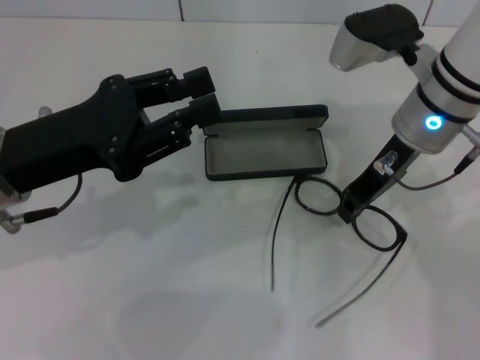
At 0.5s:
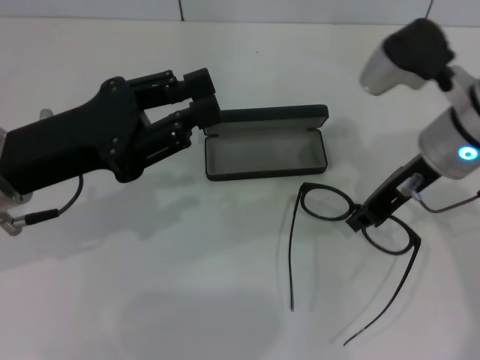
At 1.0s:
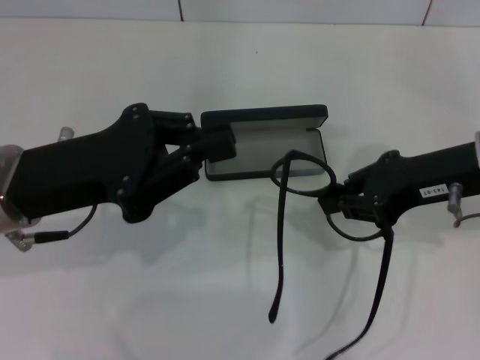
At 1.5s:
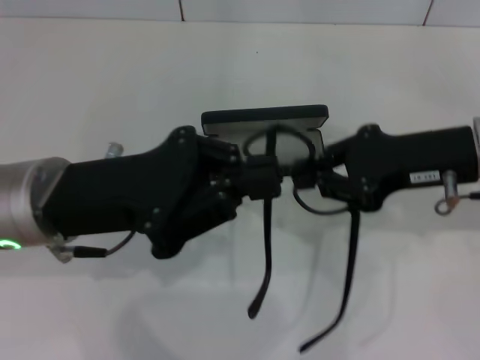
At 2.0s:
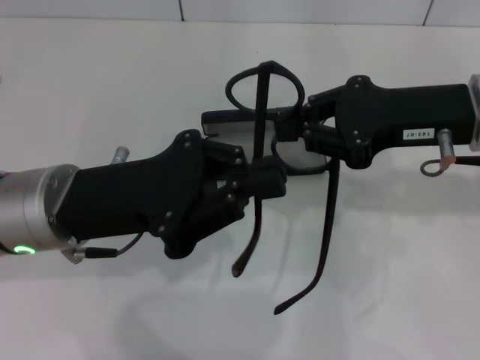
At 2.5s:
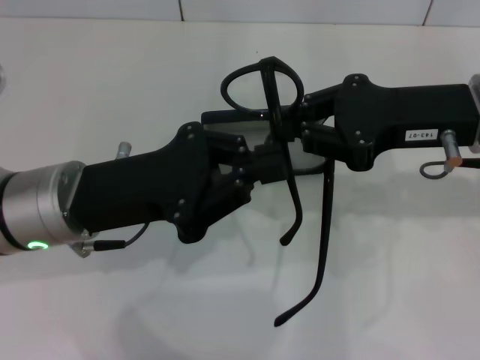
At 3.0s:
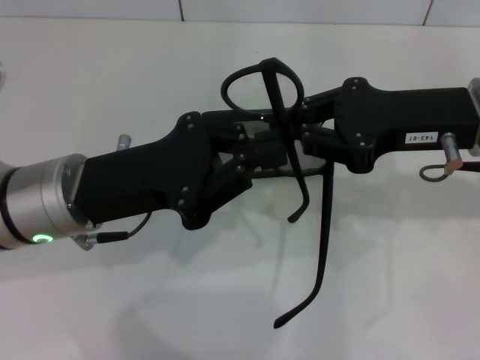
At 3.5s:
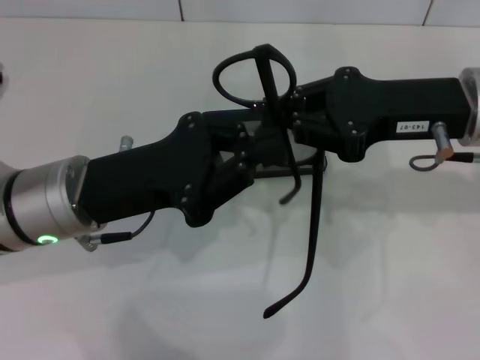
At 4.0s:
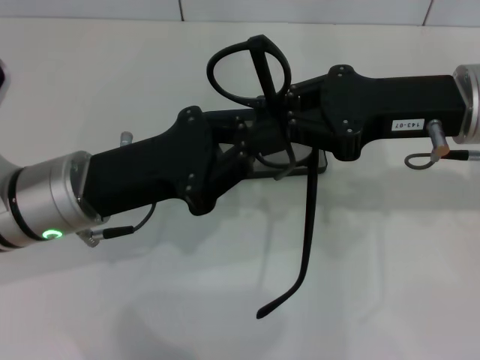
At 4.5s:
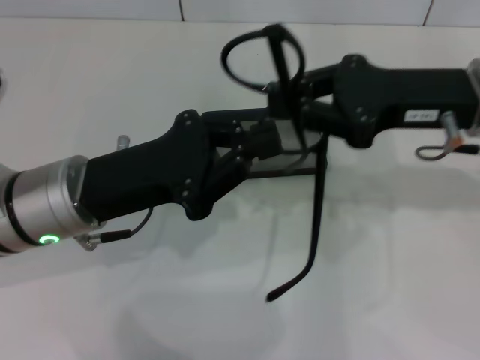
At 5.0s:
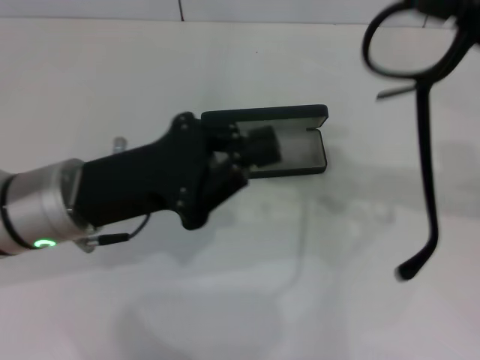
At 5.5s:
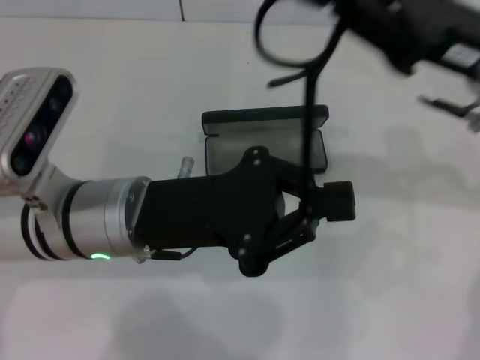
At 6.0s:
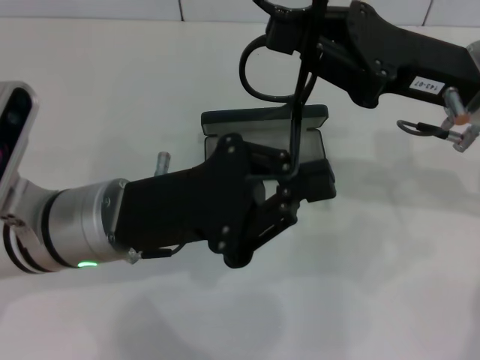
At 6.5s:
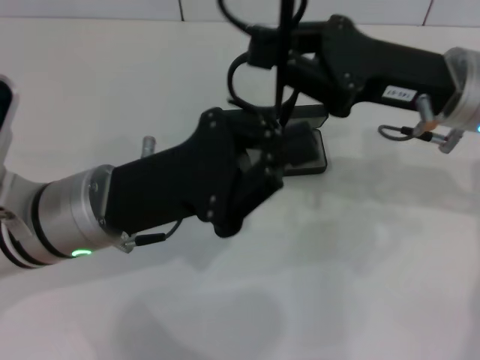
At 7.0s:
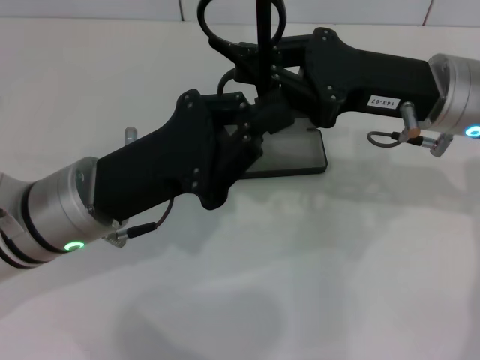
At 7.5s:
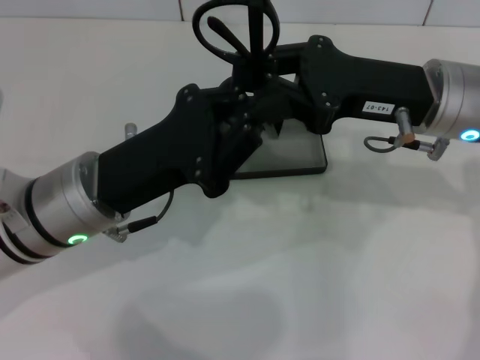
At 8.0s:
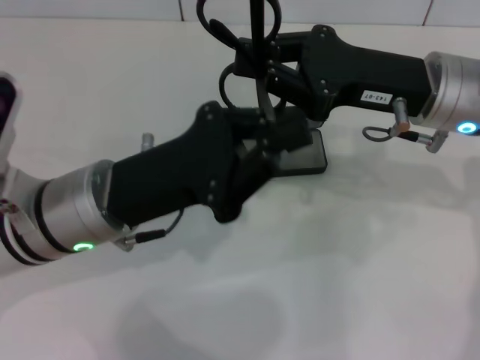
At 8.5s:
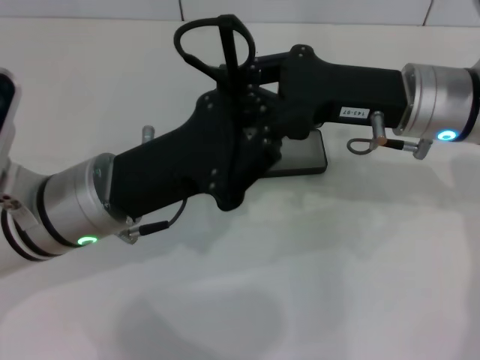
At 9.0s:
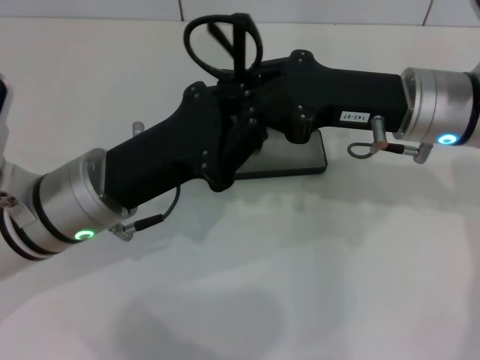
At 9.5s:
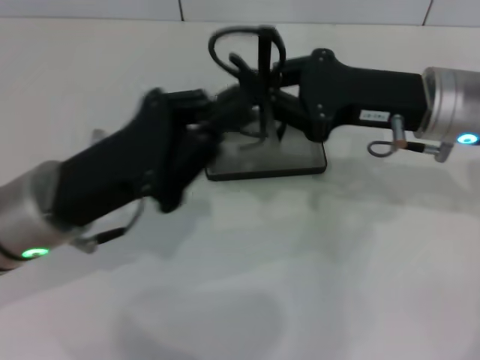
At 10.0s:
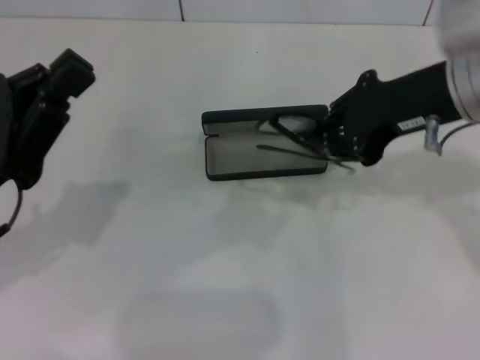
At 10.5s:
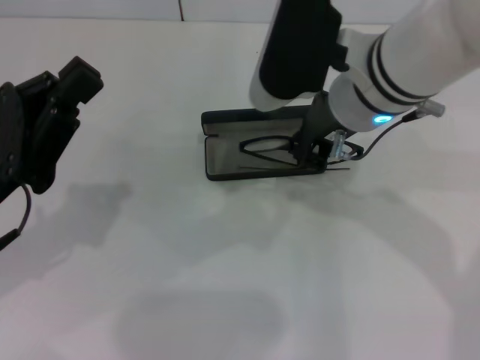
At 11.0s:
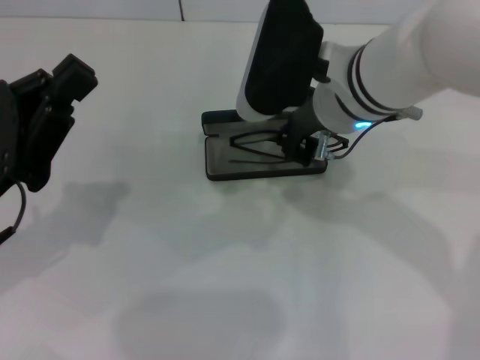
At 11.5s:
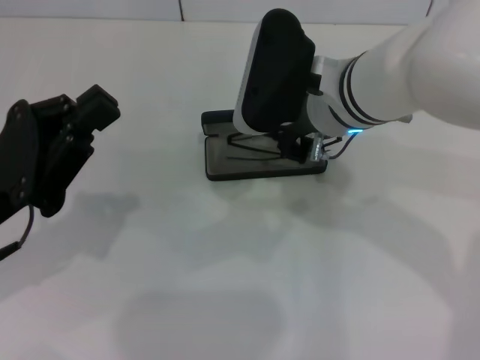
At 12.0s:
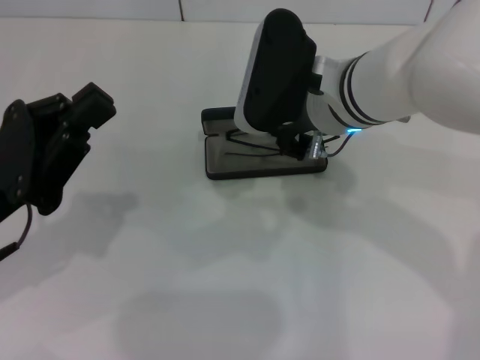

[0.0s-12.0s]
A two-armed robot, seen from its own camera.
Step, 0.0s to 8.5s: Fold the frame with your left hand.
0.0s to 2.0s: The left gripper shifts by about 5 cm, and closes its fingers. Meanwhile the right gripper moves backward and to the right, about 10 cm.
4.0s to 6.0s: The right gripper reaches some 10 cm to the right, then returns.
8.0s to 10.0s: The right gripper travels upward by roughly 5 cm; the left gripper travels to the left by some 10 cm.
10.0s to 12.0s: The right gripper travels to the left and downward by about 15 cm.

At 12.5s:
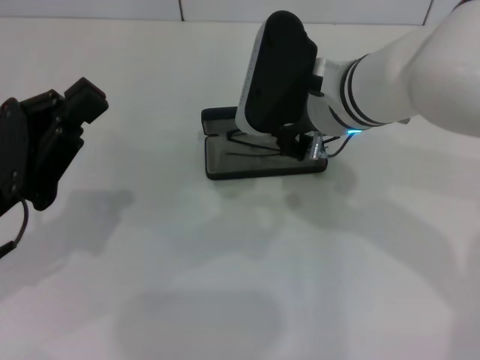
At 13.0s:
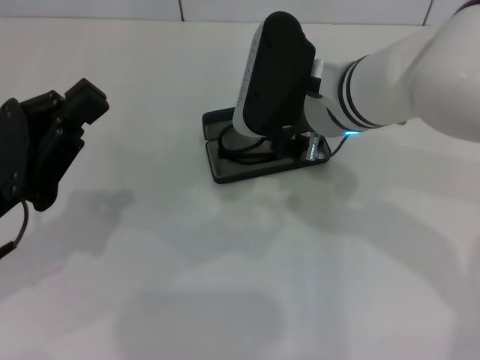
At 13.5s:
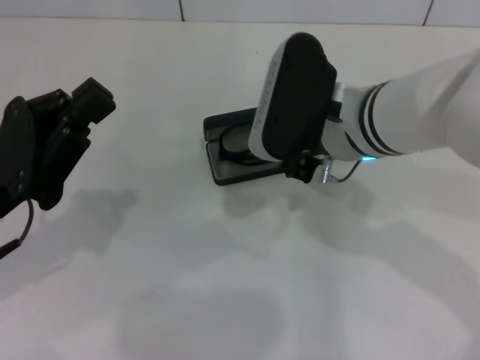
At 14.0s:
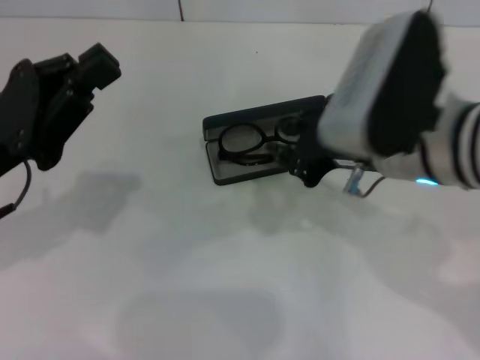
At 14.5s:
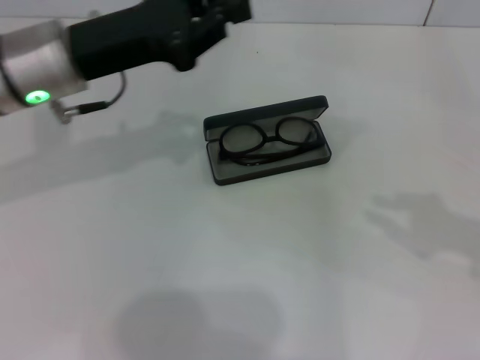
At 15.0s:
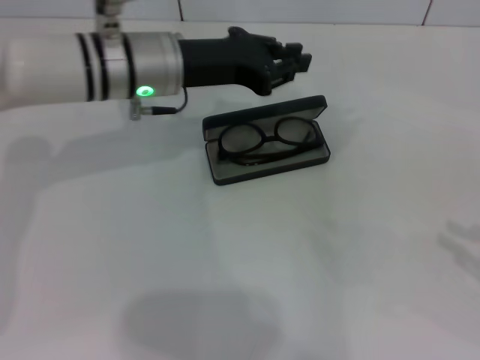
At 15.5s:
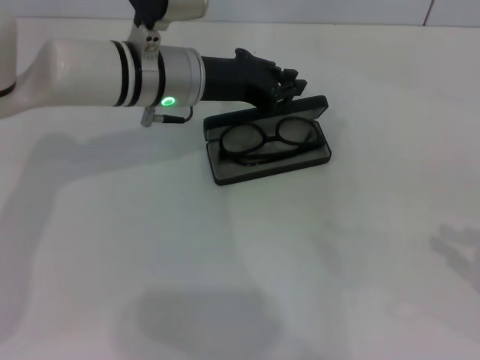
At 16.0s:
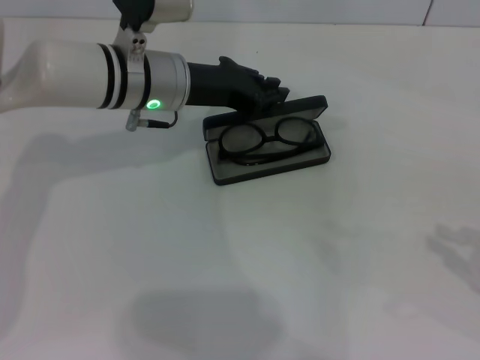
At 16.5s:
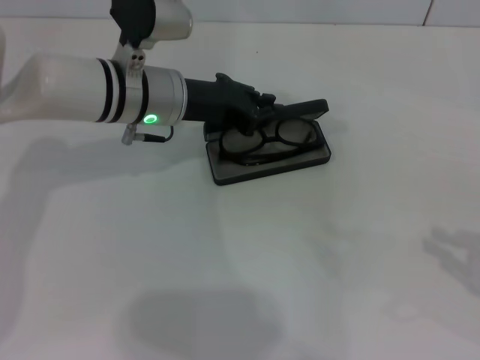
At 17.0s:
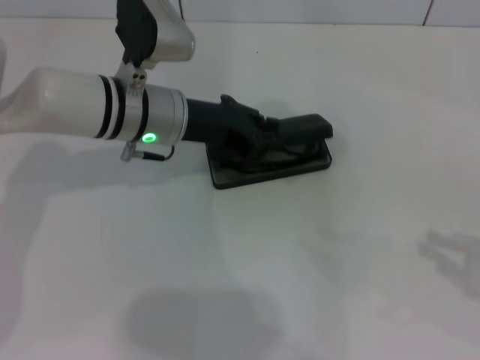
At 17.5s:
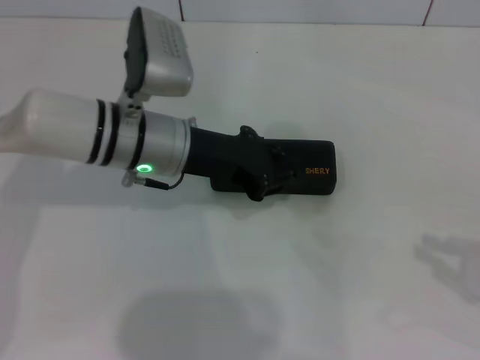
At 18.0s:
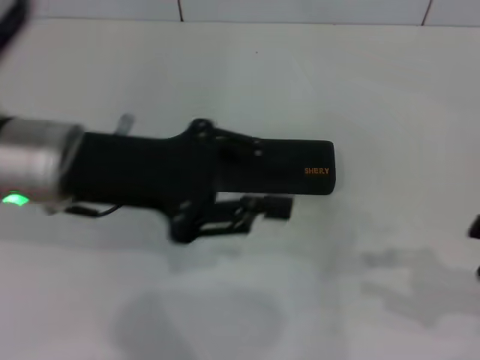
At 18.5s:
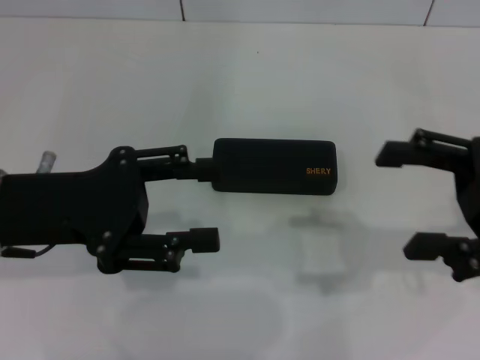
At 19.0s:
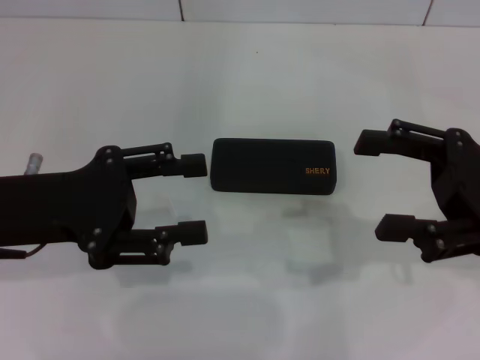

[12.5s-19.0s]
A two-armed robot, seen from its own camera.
Step, 14.5s to 17.5s: Close the glasses case with your left hand.
12.5s to 14.5s: The right gripper shifts approximately 30 cm to the right and backward. Meanwhile the left gripper moves forward, to the right and upward, roughly 15 cm.
14.5s to 17.0s: The left gripper heads to the right and downward, covering some 10 cm. The right gripper shifts approximately 10 cm downward.
17.0s to 19.0s: The right gripper is displaced to the left and forward by some 15 cm, and opens its fingers, while the left gripper travels backward and to the left by about 20 cm, and opens its fingers.

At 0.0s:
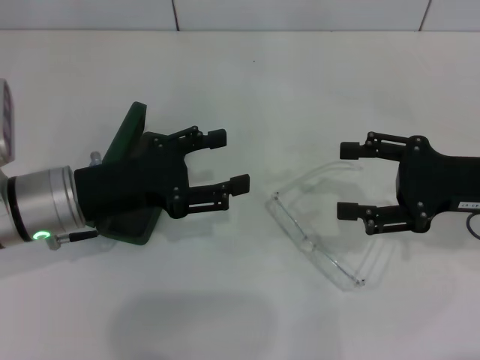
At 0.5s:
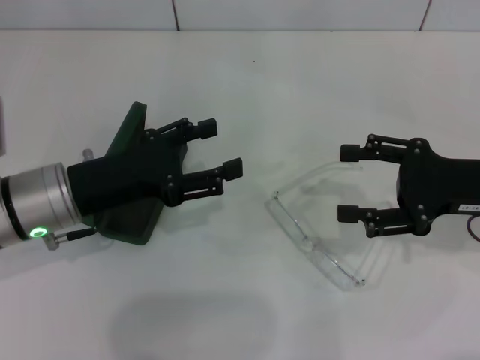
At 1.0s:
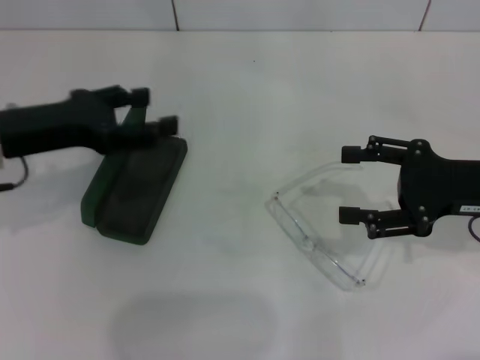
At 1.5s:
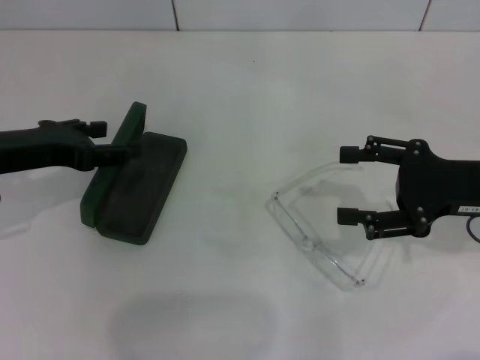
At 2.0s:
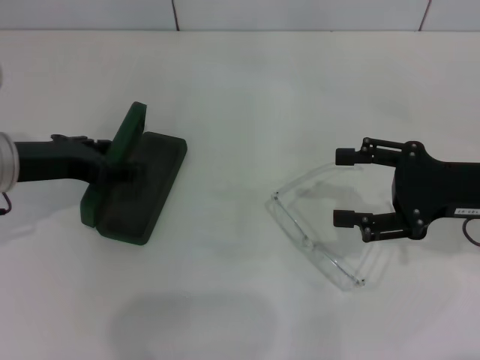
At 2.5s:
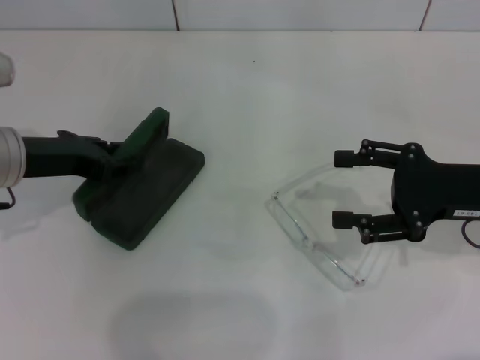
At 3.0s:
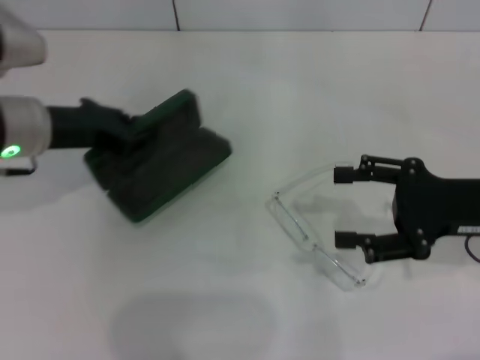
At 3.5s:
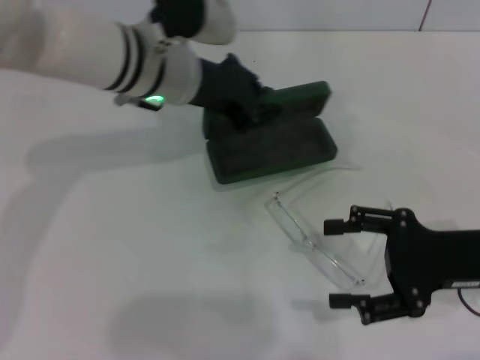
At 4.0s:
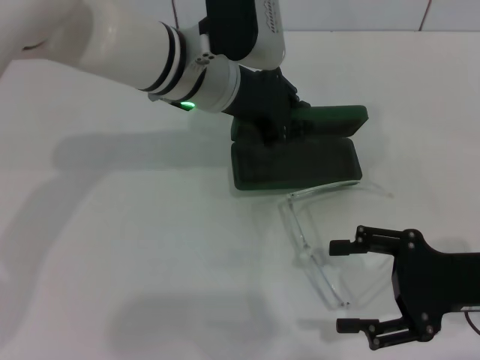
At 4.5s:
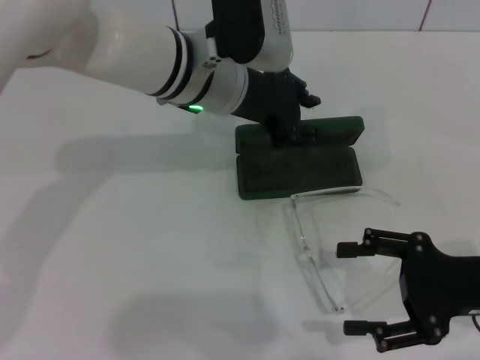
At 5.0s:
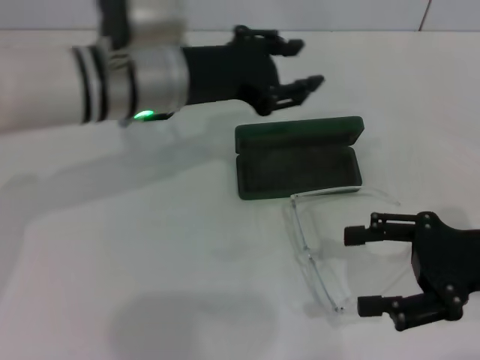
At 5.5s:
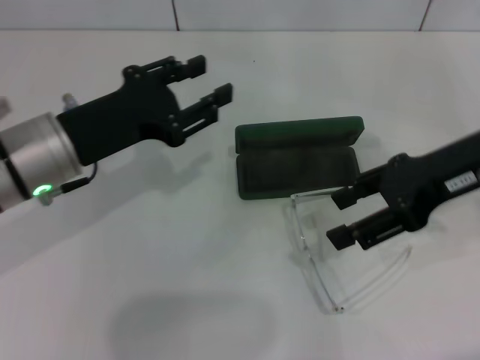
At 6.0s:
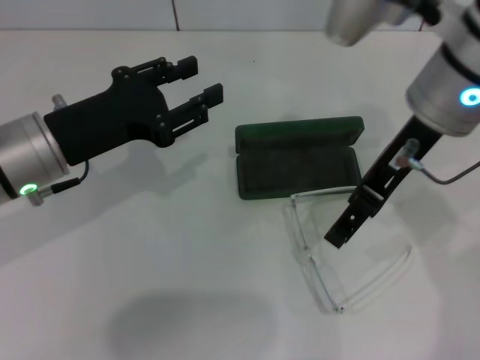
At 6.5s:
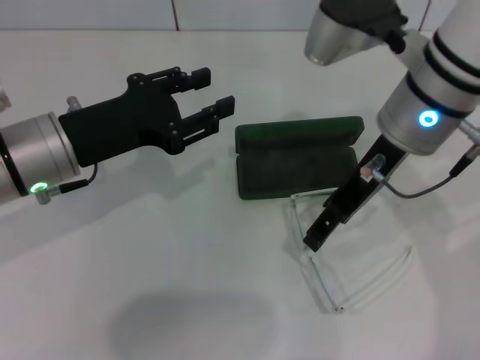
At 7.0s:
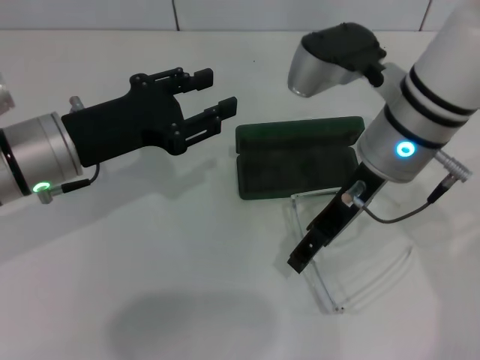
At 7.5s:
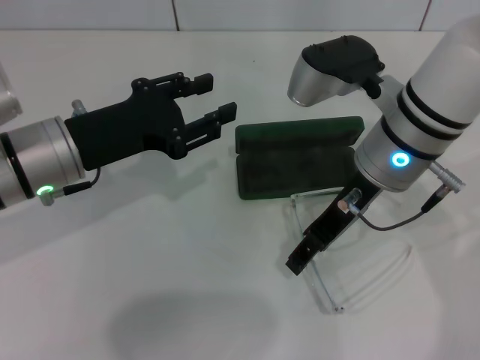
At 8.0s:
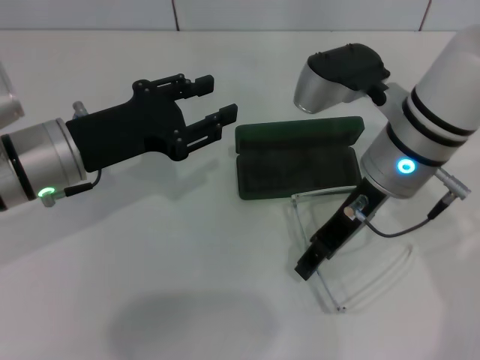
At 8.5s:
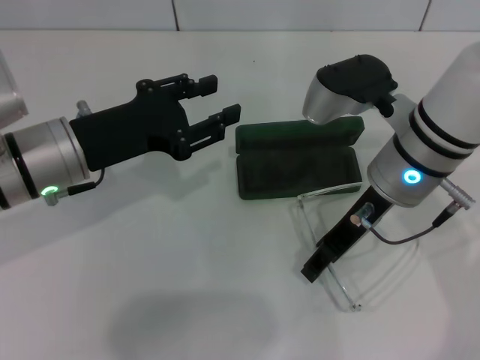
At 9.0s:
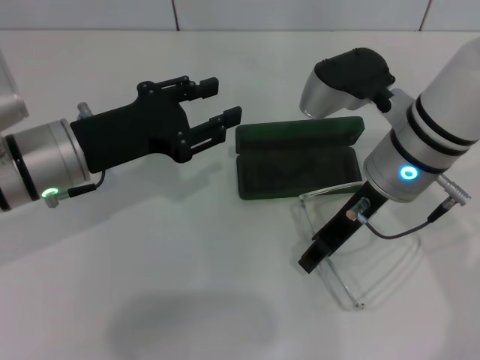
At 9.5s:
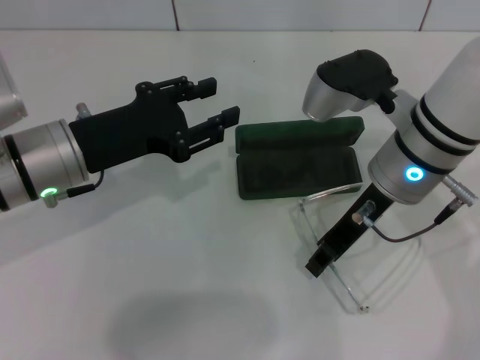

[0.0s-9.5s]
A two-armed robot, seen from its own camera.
Step, 0.0s to 2.0s: Grab the glasses case with your left hand.
Step, 2.5s to 4.0s: Place the glasses case in the center of the table with your left hand.
0.0s to 2.0s: The left gripper moves roughly 5 cm.
2.0s to 4.0s: The right gripper shifts about 5 cm backward, while the left gripper goes roughly 20 cm to the right, and closes its fingers.
4.0s to 5.5s: The left gripper goes roughly 15 cm to the left and backward, and opens up; the right gripper moves upward and forward, roughly 15 cm.
5.5s to 7.5s: The right gripper travels to the left by about 10 cm.
7.5s to 9.5s: The right gripper closes.
